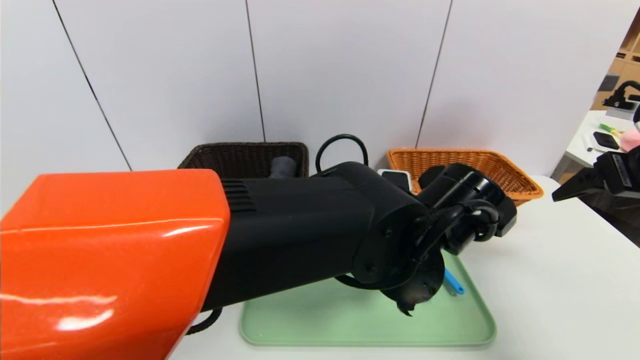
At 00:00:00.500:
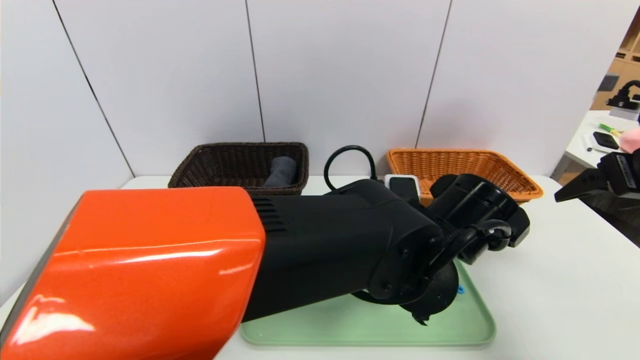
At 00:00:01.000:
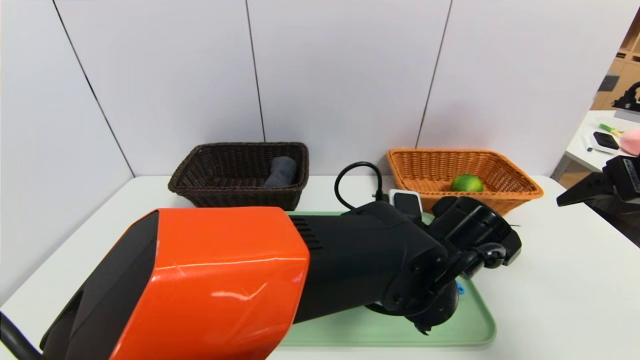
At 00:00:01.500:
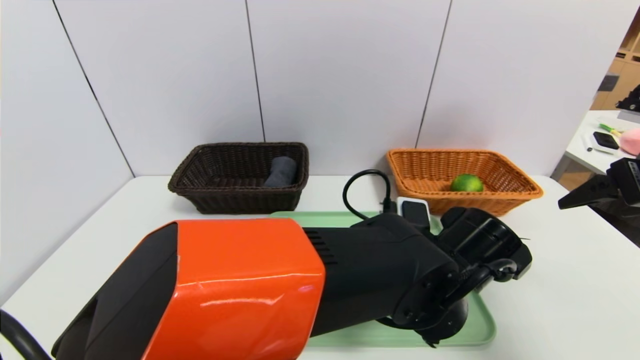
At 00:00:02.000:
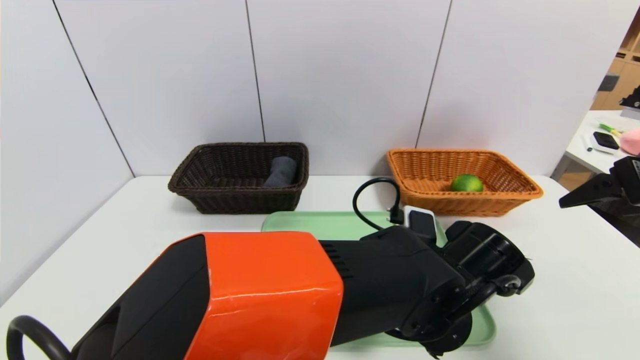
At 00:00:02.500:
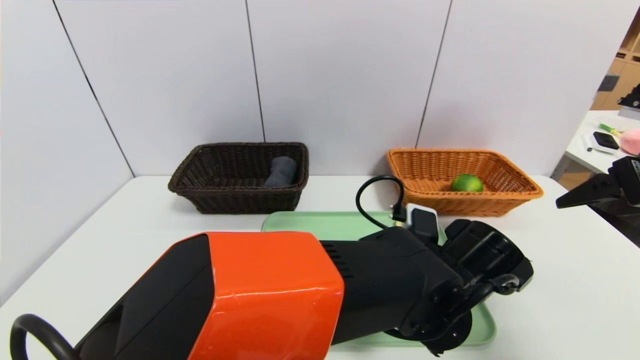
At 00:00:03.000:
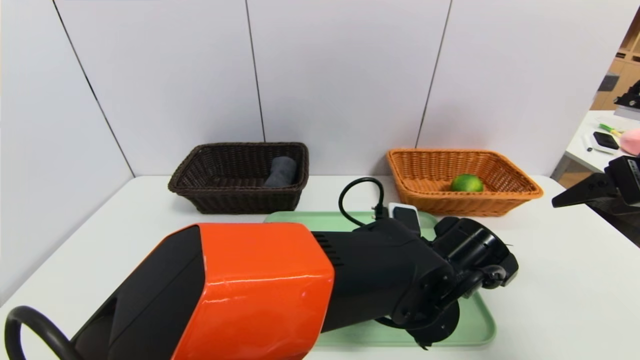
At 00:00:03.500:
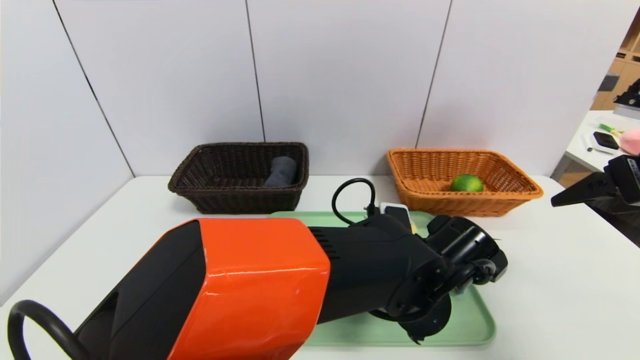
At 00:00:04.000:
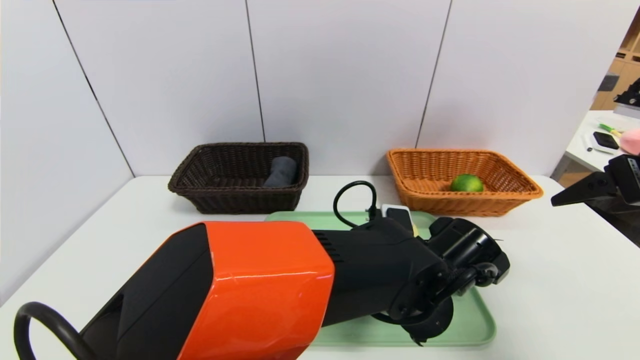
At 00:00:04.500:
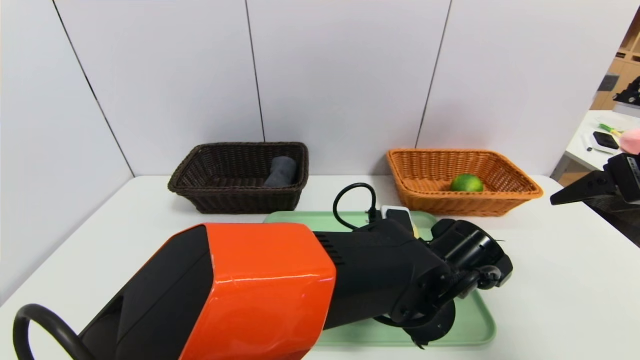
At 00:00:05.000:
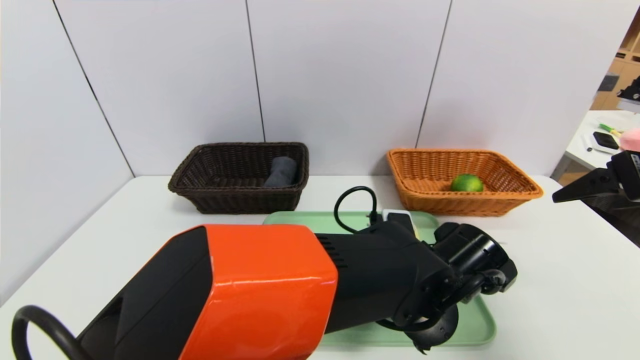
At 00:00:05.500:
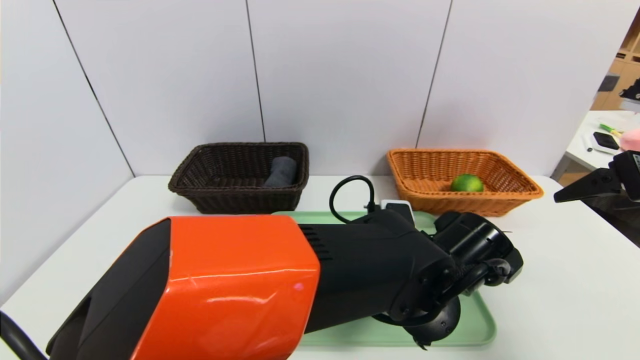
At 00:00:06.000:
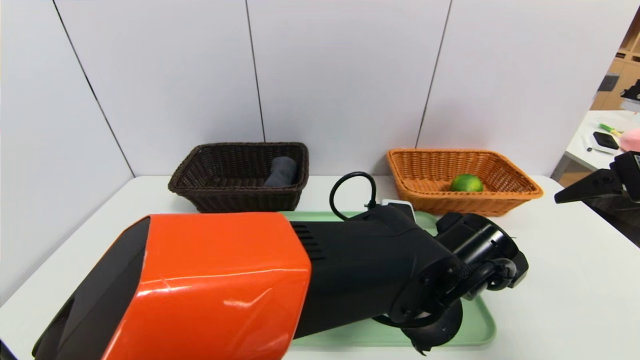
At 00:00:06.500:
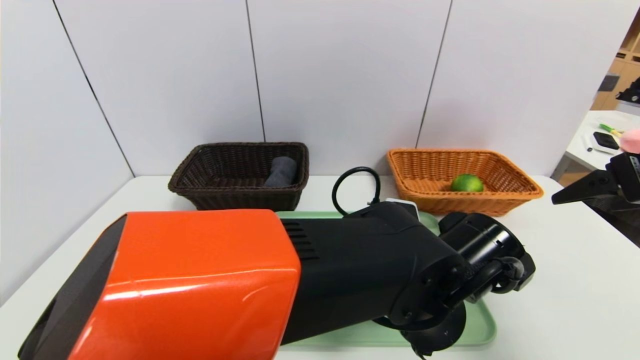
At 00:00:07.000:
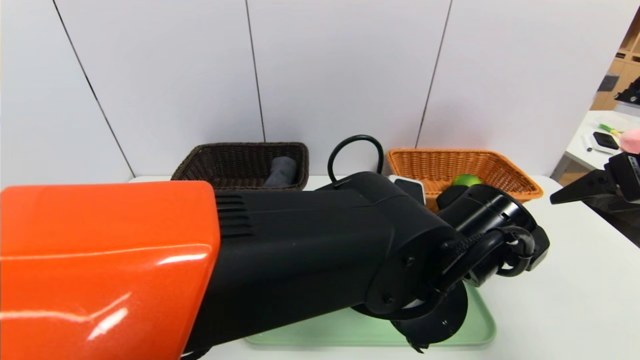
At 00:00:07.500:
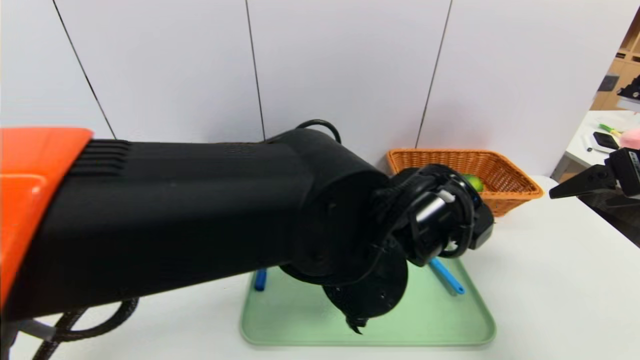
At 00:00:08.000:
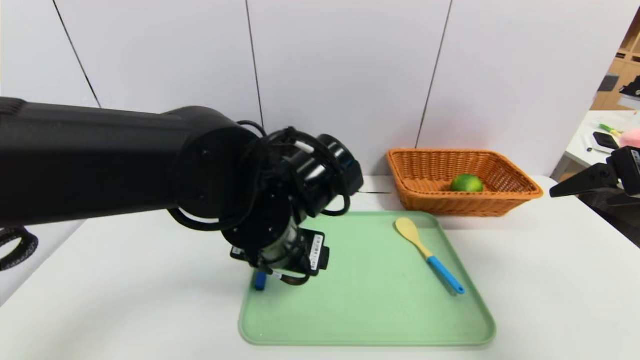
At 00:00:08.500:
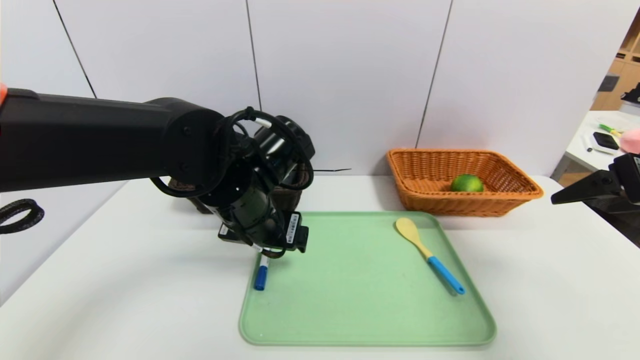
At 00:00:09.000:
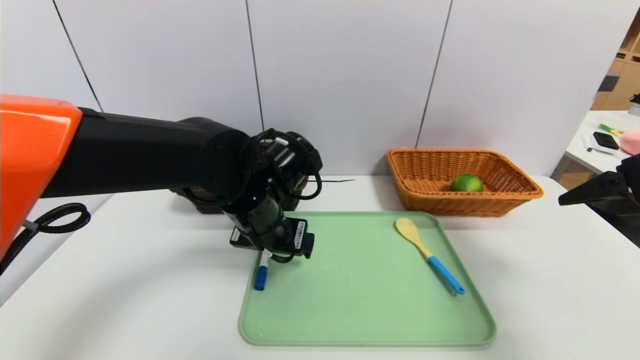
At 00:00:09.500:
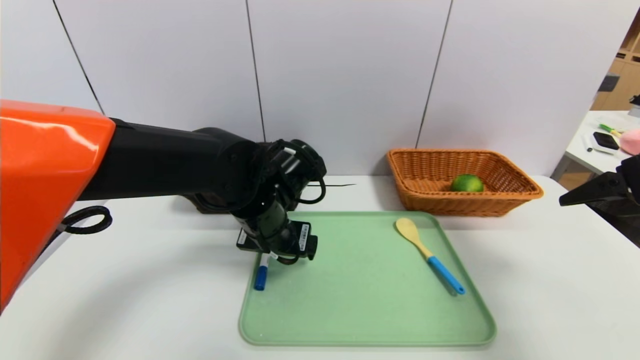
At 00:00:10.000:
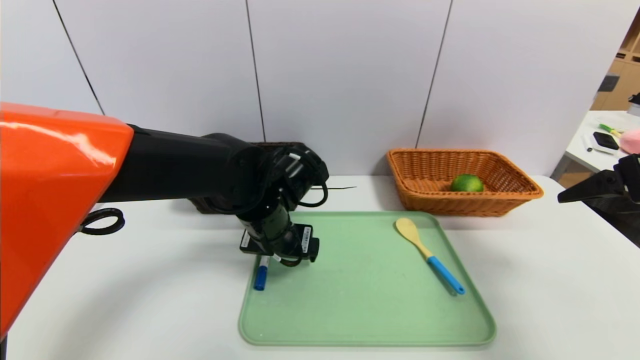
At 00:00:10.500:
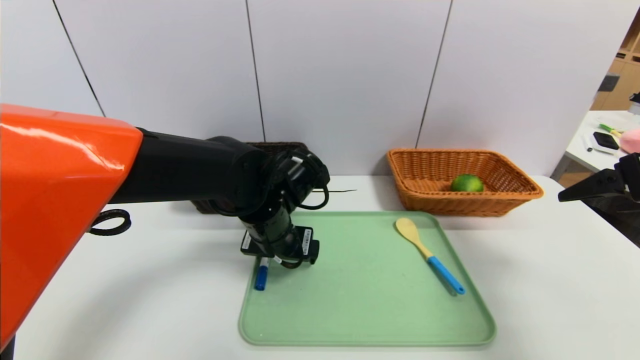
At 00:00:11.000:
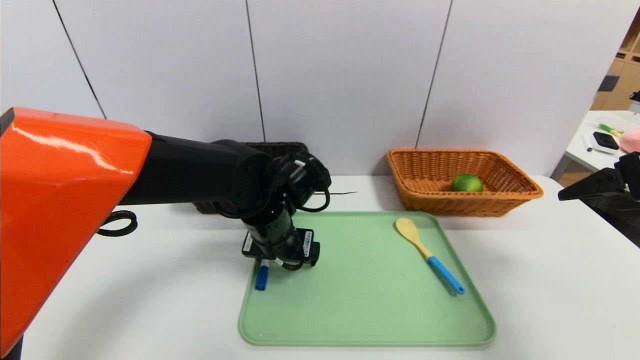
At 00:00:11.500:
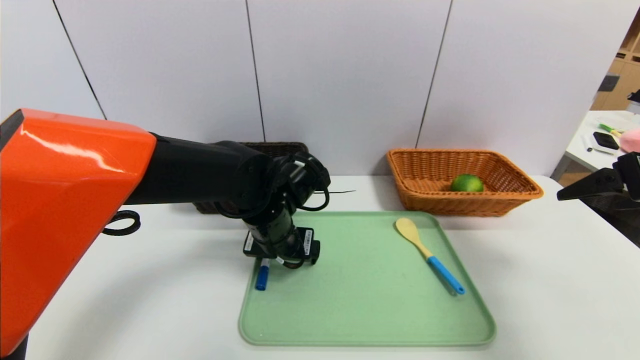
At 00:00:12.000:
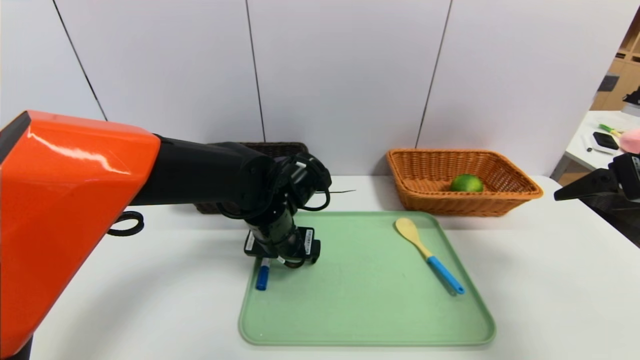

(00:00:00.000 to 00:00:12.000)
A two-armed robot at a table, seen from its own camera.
Task of the whole recording: place the food in the right basket with the right gripper, and place the non food items in the left basket with the left gripper.
00:00:00.000 - 00:00:02.000: The left gripper moves downward, some 5 cm.
00:00:02.000 - 00:00:04.000: There are only small adjustments of the grippers.
00:00:04.000 - 00:00:06.000: The left gripper closes up.
00:00:06.000 - 00:00:08.000: The left gripper travels to the left and upward by approximately 15 cm, and opens.
00:00:08.000 - 00:00:10.000: The left gripper shifts about 5 cm forward.
00:00:10.000 - 00:00:12.000: The grippers make only small movements.

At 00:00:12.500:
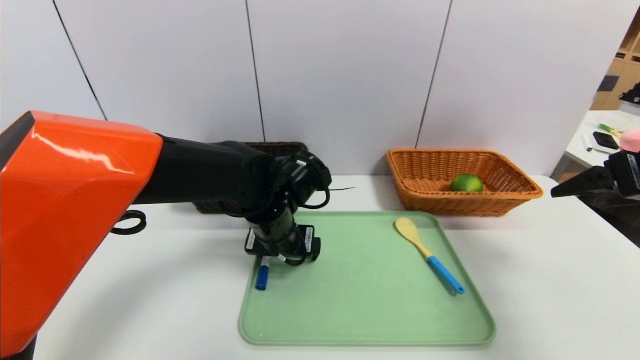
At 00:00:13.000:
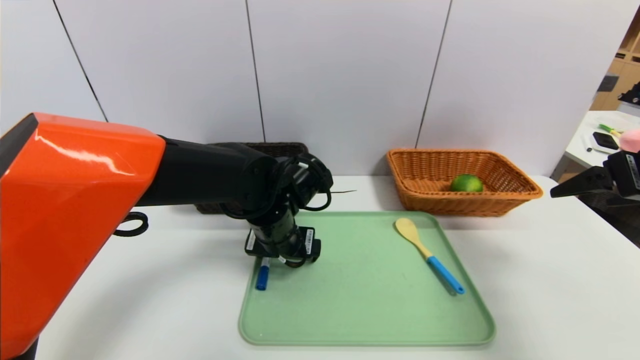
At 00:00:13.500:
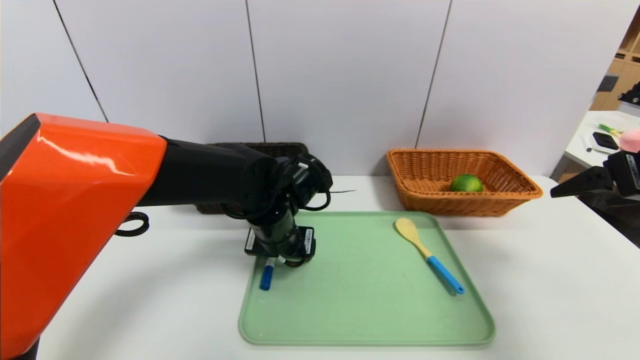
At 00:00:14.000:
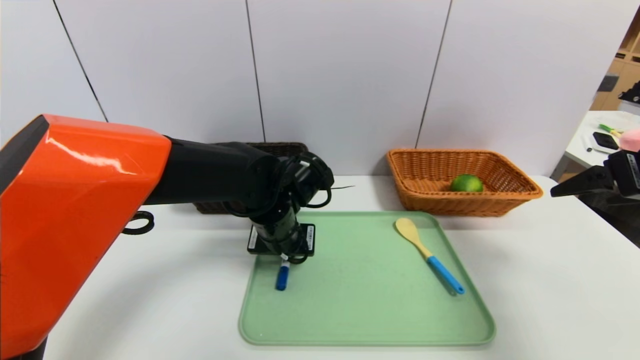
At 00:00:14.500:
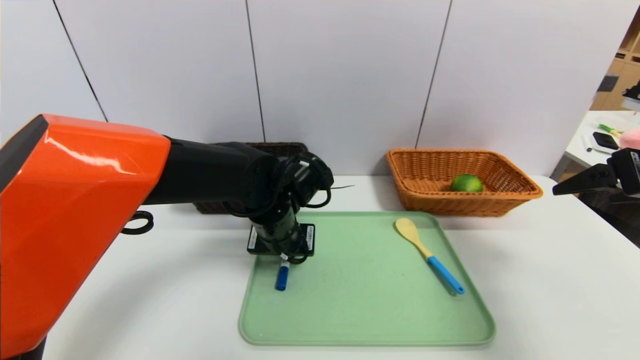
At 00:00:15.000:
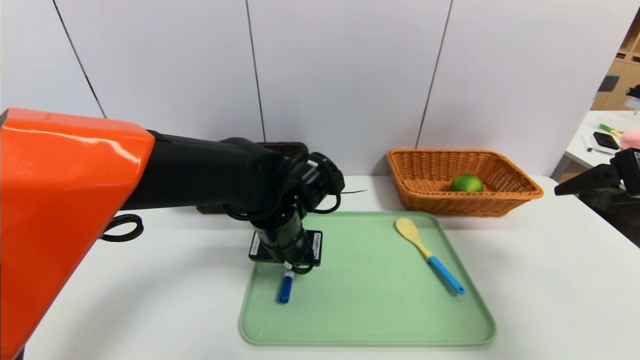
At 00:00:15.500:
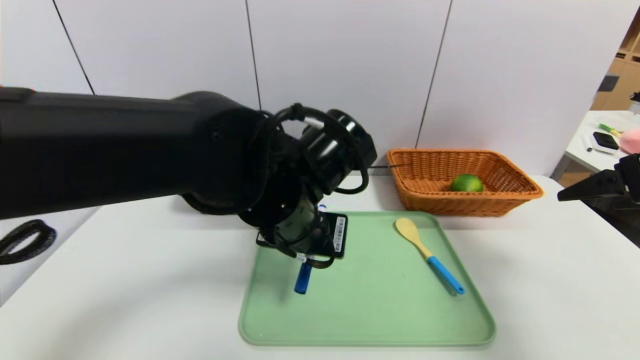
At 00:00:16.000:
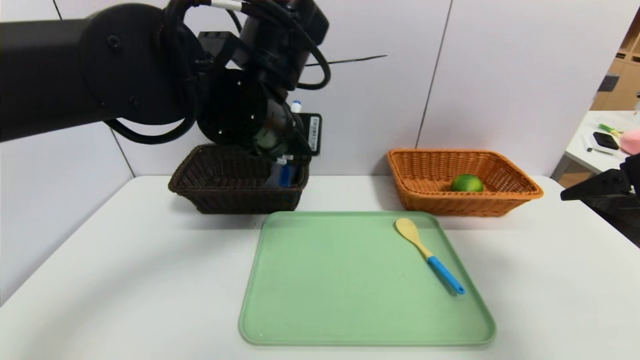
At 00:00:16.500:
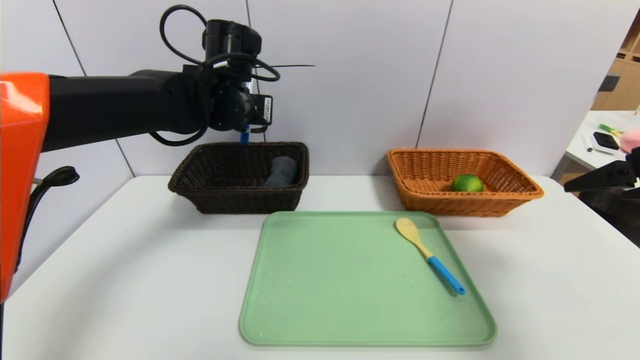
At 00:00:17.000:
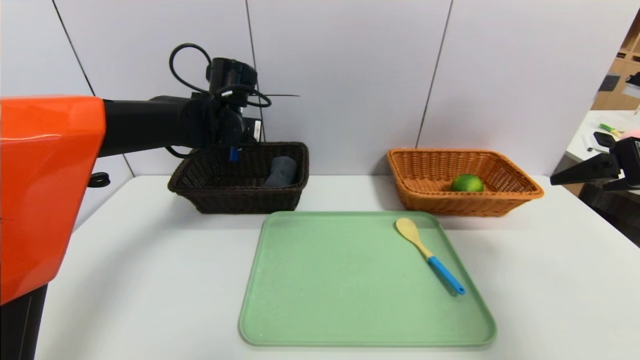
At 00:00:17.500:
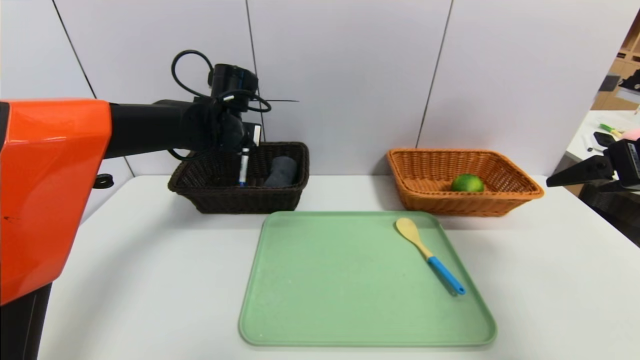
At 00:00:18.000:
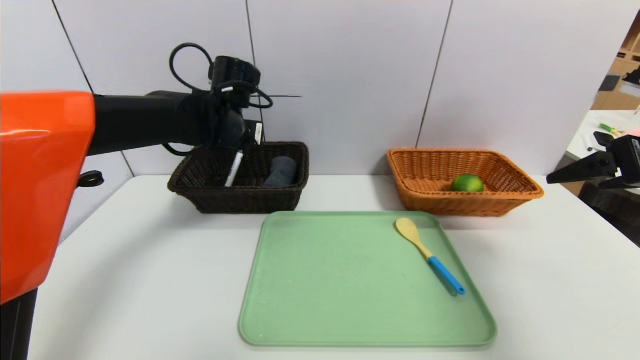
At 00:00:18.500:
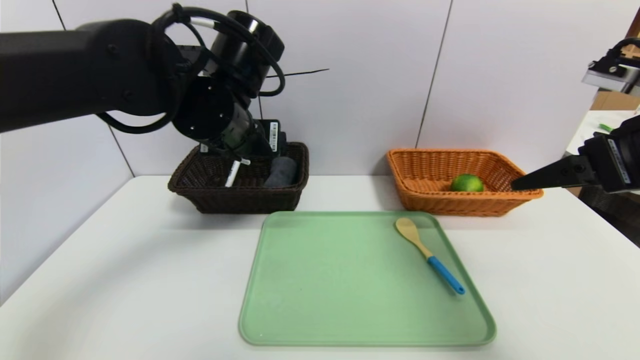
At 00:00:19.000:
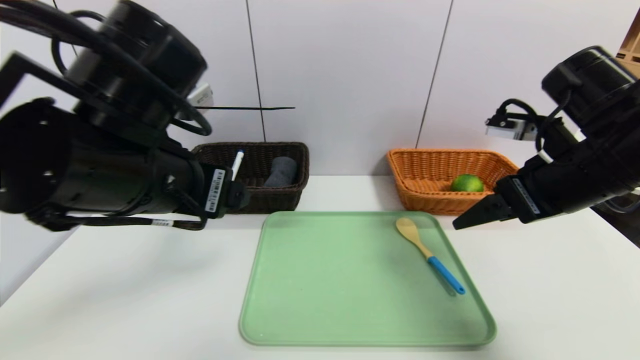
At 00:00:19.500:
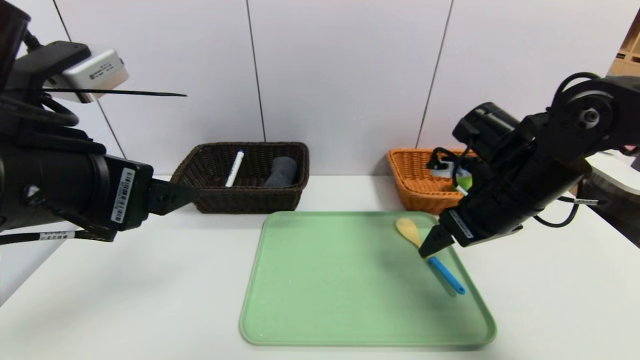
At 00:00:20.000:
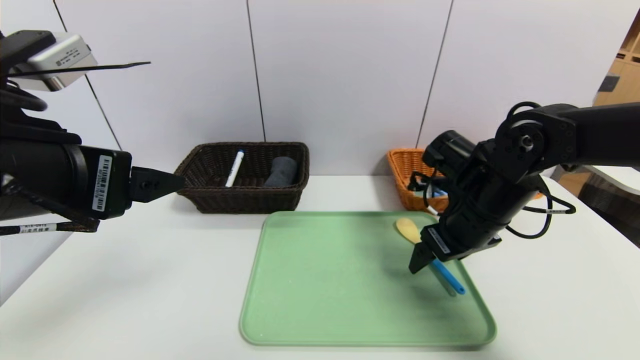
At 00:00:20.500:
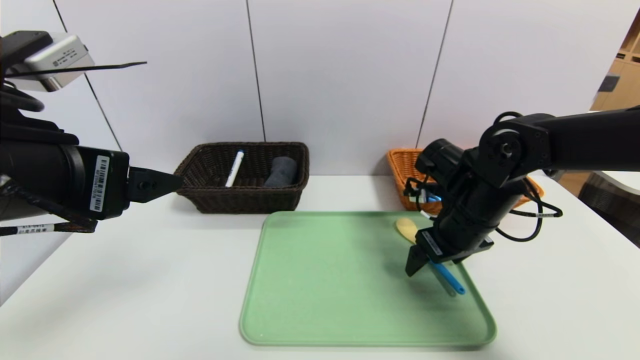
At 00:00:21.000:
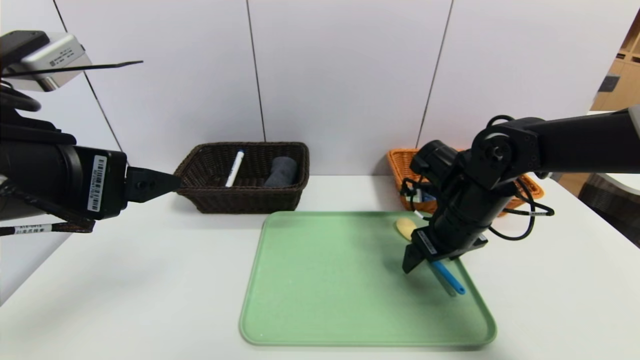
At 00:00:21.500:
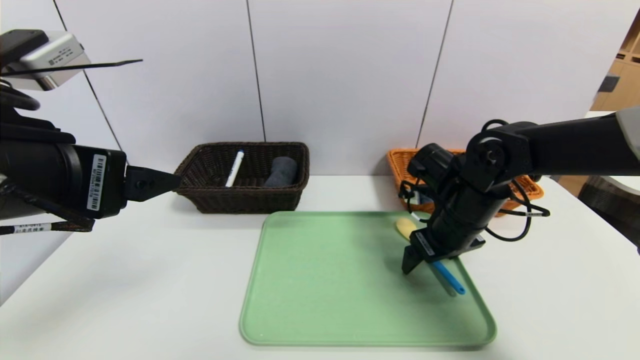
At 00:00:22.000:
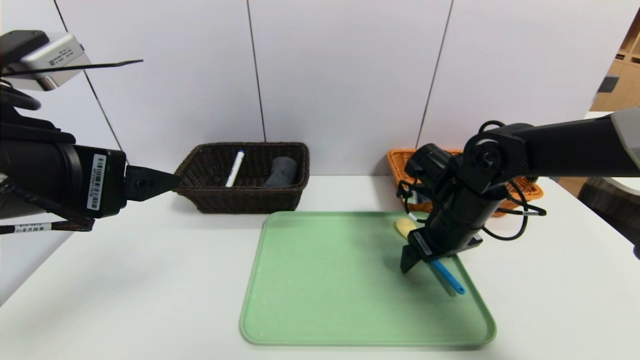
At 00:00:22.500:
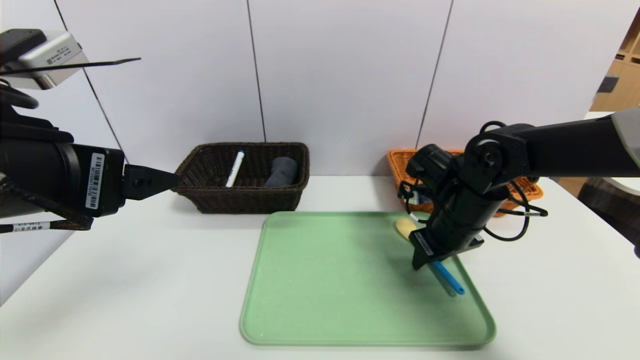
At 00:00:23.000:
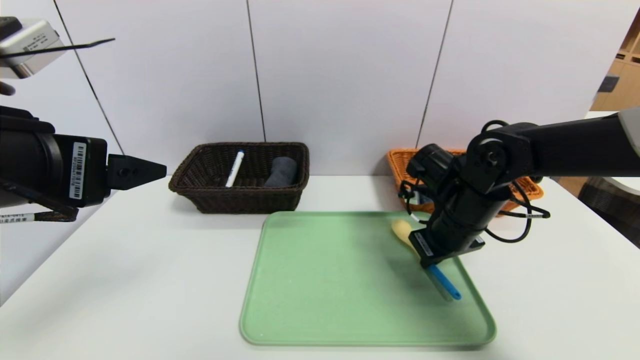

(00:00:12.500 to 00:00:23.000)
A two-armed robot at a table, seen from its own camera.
Task of the whole recording: place the food in the right basket with the right gripper, and place the non food items in the left basket with the left gripper.
Step, 00:00:12.500 - 00:00:18.500: Grasp the blue marker and put it in the left basket.
00:00:12.500 - 00:00:14.500: The left gripper closes its fingers.
00:00:14.500 - 00:00:16.500: The left gripper shifts approximately 15 cm upward, forward and to the left.
00:00:16.500 - 00:00:19.000: The left gripper goes approximately 20 cm backward, and opens up, while the right gripper travels to the left and forward by approximately 10 cm.
00:00:19.000 - 00:00:21.000: The left gripper heads to the left, covering about 5 cm. The right gripper travels downward, forward and to the left by approximately 15 cm.
00:00:21.000 - 00:00:23.000: The right gripper closes its fingers.
